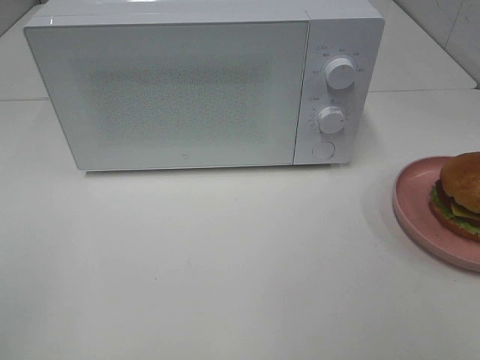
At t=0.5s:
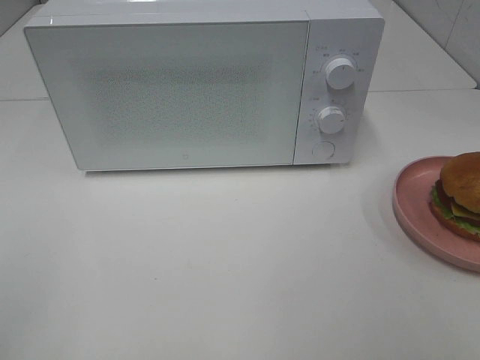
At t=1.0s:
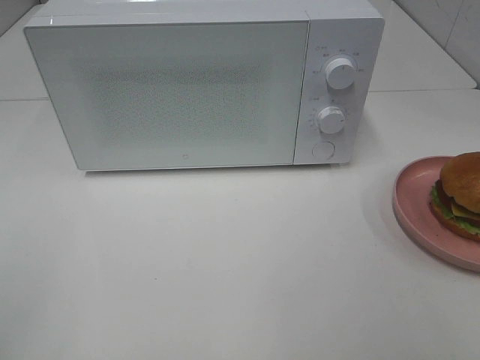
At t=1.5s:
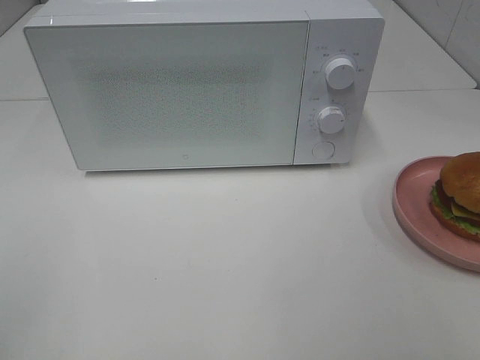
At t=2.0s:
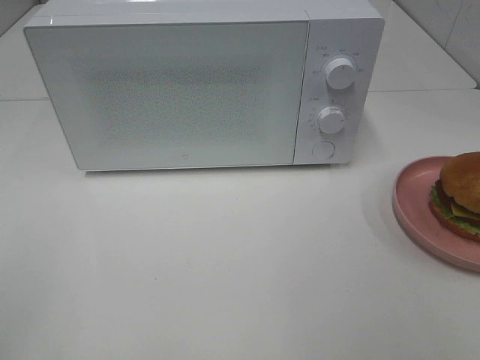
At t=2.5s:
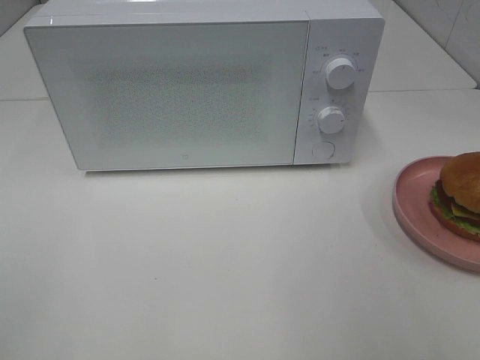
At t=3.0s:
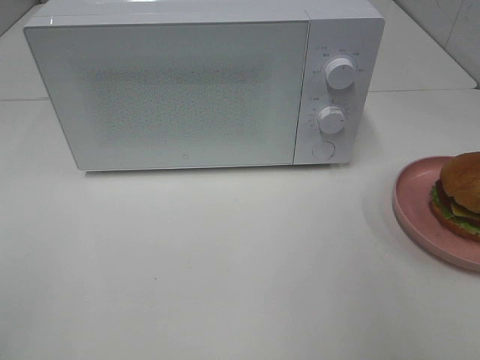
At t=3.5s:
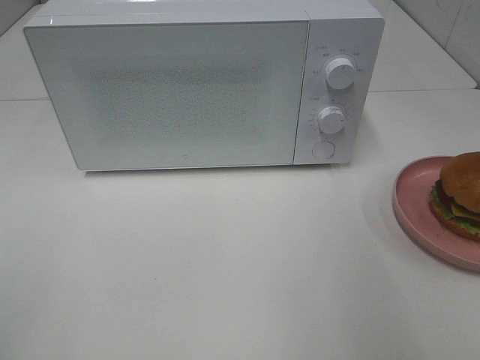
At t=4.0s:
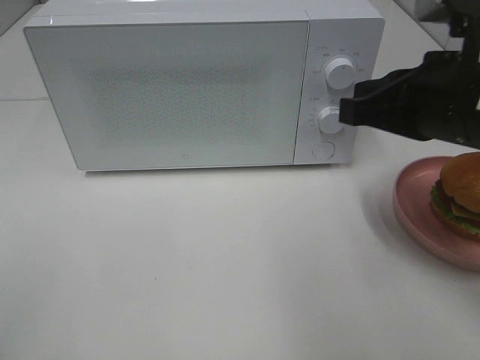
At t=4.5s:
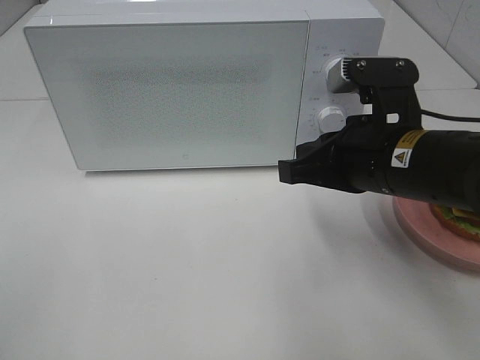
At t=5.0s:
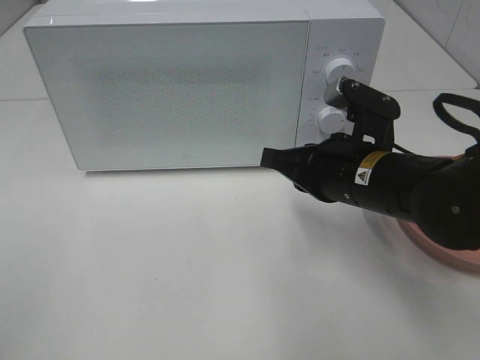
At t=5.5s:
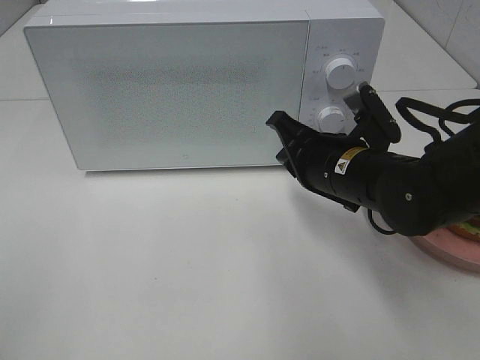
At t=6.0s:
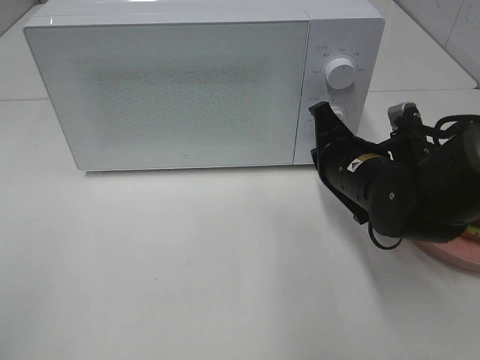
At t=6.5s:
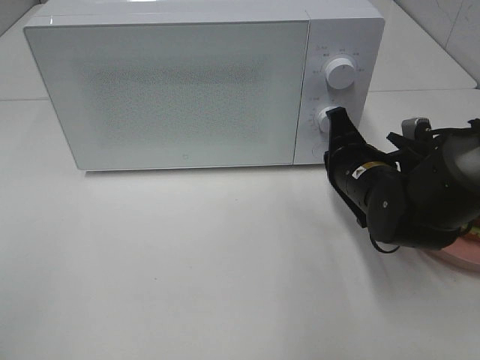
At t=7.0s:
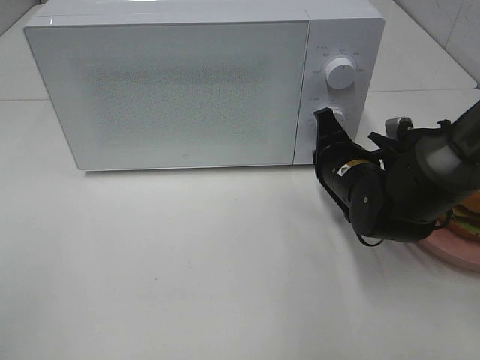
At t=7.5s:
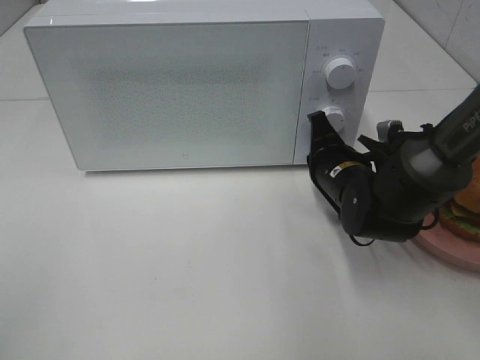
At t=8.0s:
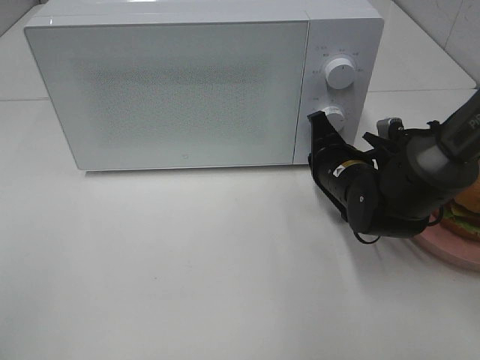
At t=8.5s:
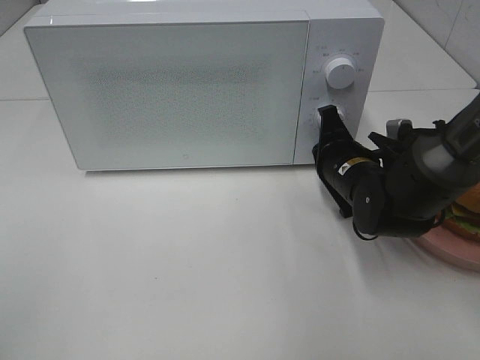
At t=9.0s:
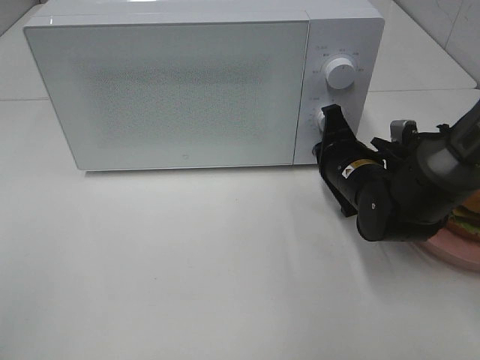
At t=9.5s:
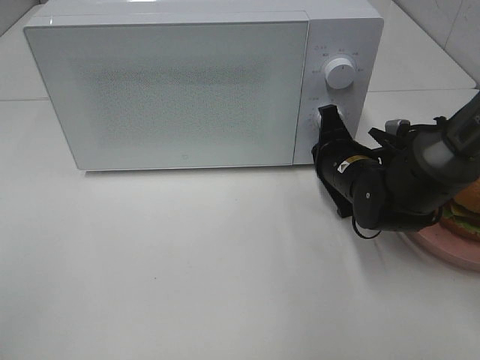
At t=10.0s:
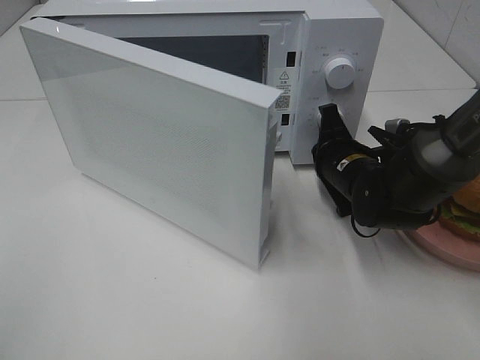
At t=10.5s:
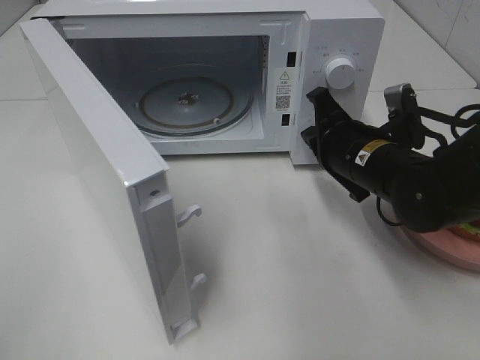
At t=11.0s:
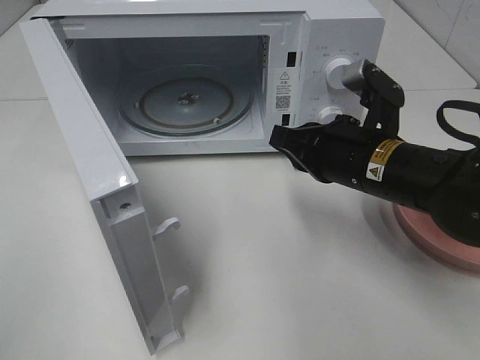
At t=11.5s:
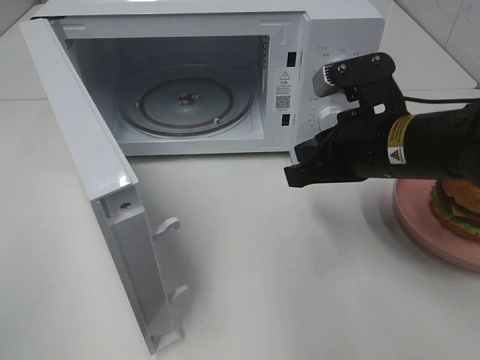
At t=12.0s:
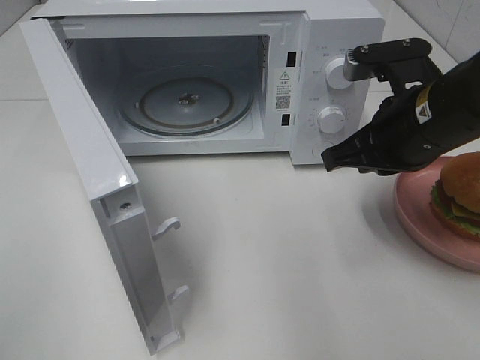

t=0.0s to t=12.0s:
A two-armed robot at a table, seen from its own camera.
Task of the whole recording: Heat the burger.
Step, t=0.0s to t=10.0s: Right hand: press the switch.
t=0.0s to t=2.0s: Both grippers stay about where they are.
t=2.0s to t=4.0s: The right gripper travels forward and to the left by approximately 25 cm, and closes up.
t=4.0s to t=6.0s: The right gripper heads downward and forward, covering roughly 15 cm.
t=6.0s to t=8.0s: The right gripper moves roughly 5 cm.
t=8.0s to t=10.0s: The grippers stay close to where they were, moving slightly.
t=10.0s to t=12.0s: The right gripper travels upward and backward by approximately 15 cm.

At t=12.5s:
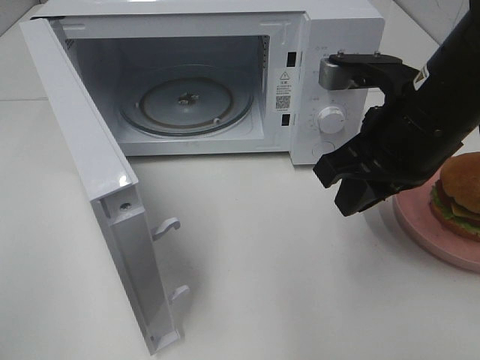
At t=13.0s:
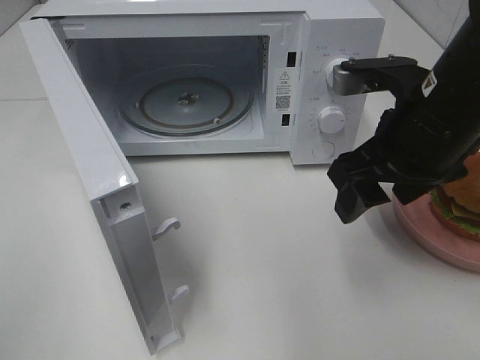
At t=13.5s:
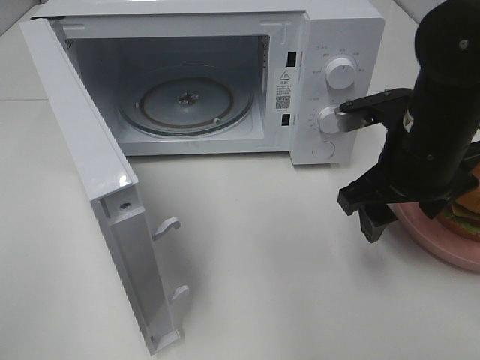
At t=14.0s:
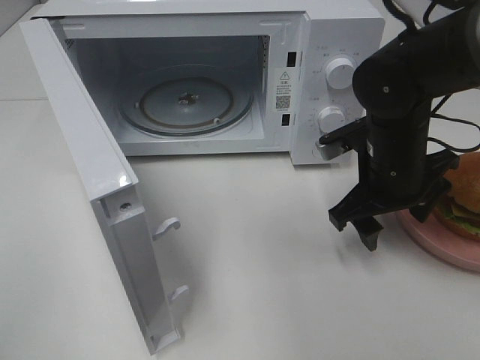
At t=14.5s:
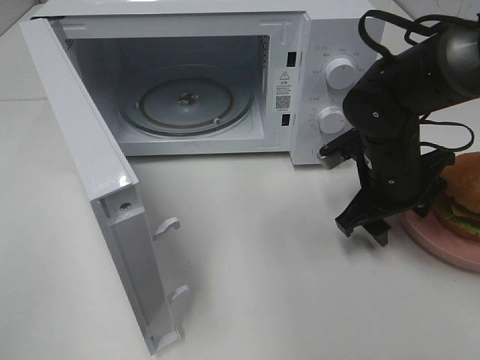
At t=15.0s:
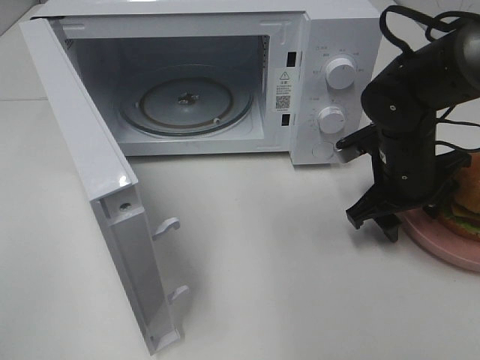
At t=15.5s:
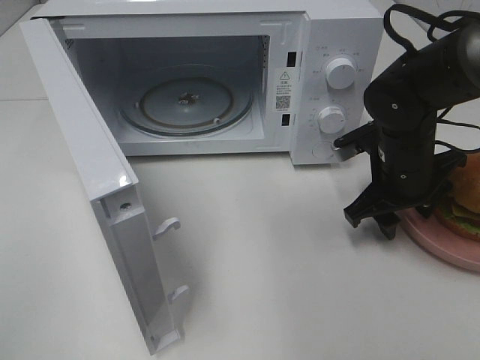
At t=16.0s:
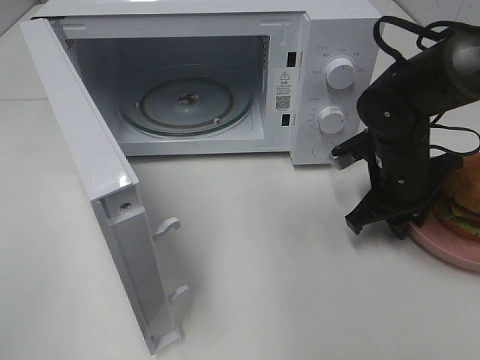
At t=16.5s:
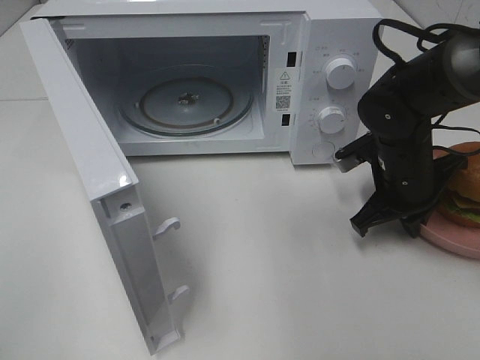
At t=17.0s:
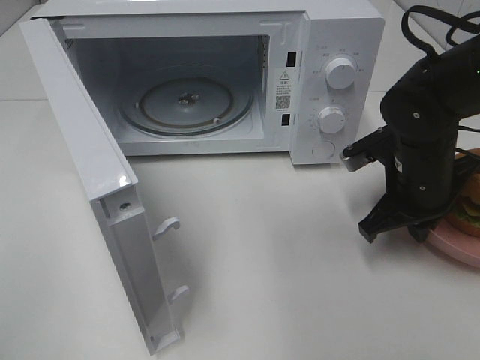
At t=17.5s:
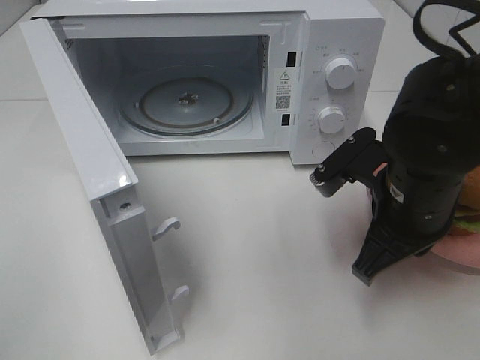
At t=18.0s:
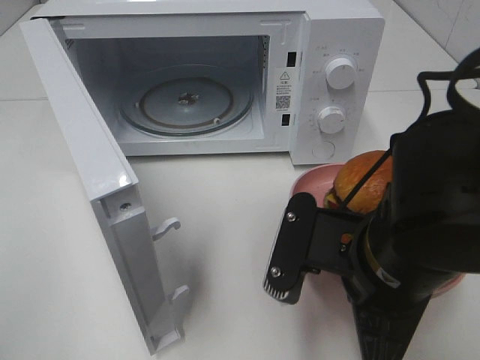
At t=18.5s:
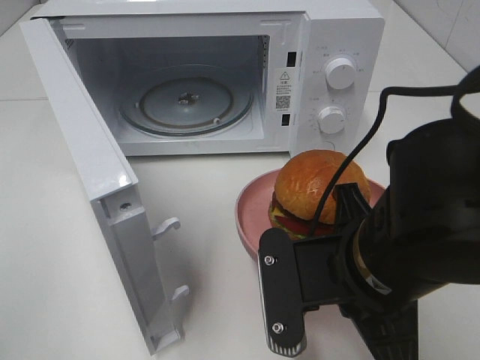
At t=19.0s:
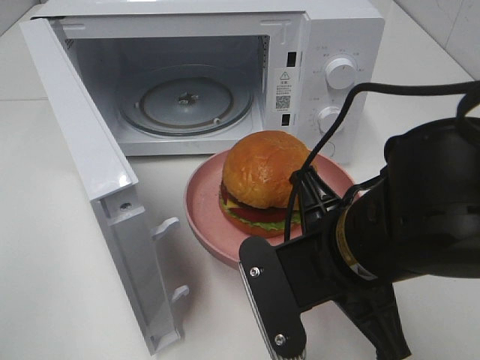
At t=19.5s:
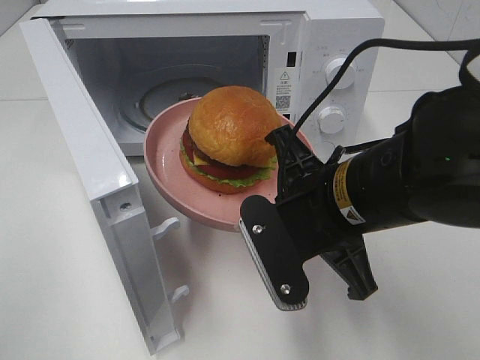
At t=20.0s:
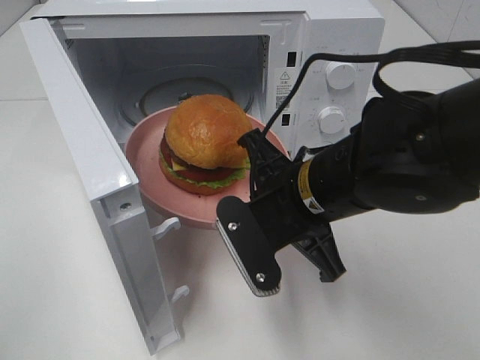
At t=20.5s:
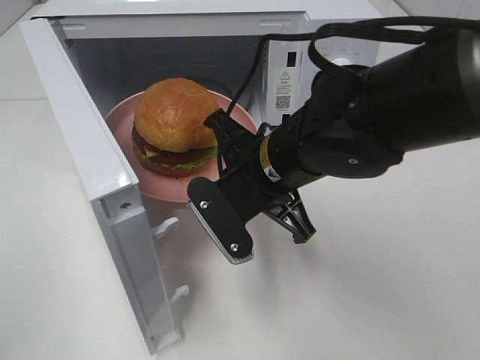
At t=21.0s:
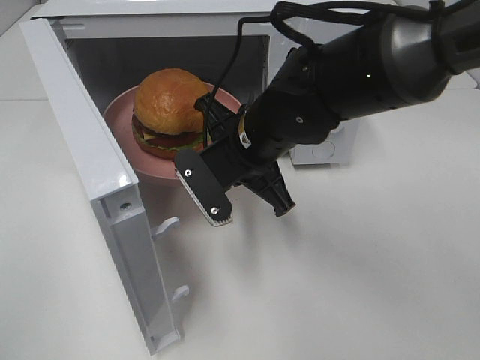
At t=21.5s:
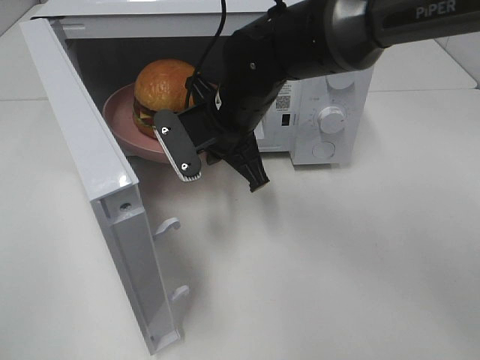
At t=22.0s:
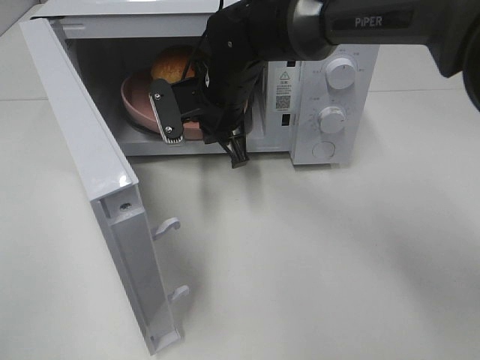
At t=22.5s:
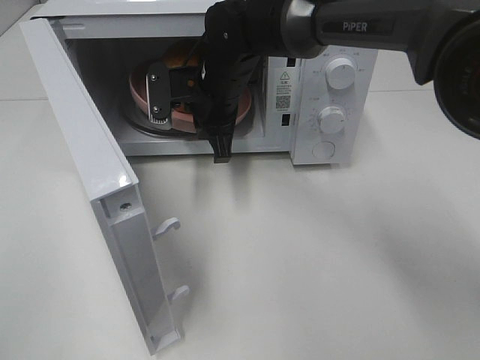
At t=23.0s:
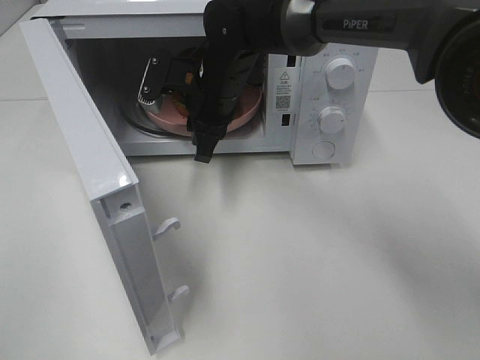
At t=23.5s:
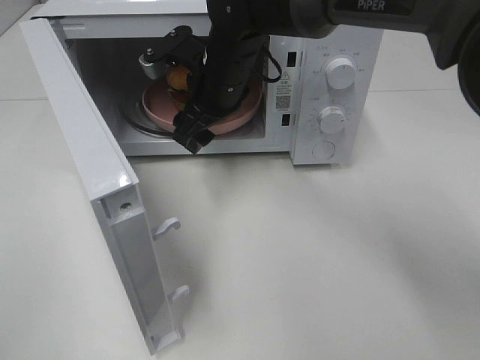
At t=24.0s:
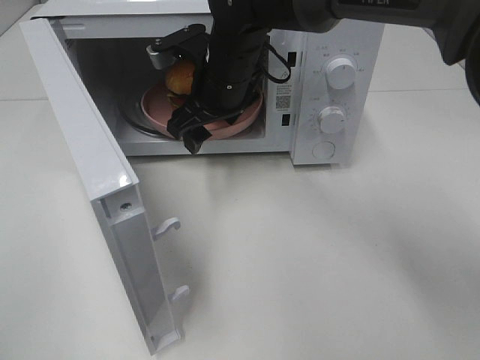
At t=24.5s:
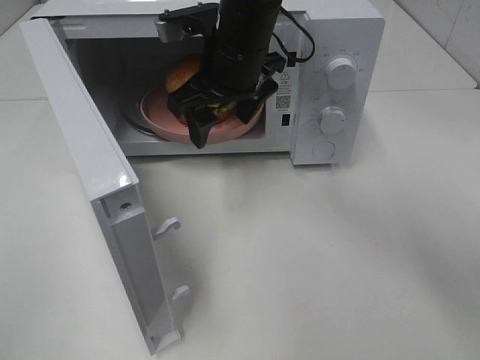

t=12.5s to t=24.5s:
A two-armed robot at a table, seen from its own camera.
Task of the whole recording: Heat the burger.
Step, t=12.5s to t=16.5s: Right hand: grab the plate with the hamburger.
Step, t=17.0s to t=23.0s: Right hand: place the plate in the microwave.
t=12.5s to t=14.5s: The right gripper travels downward and forward by some 15 cm, and opens.
t=14.5s to t=16.5s: The right gripper closes.
t=16.5s to t=18.5s: The right gripper shifts some 20 cm backward, to the left and upward.
t=18.5s to t=20.5s: The right gripper shifts about 10 cm forward and to the left.
t=20.5s to t=22.5s: The right gripper heads forward, covering about 15 cm.
t=22.5s to t=24.5s: The right gripper is displaced upward by roughly 5 cm, and opens.

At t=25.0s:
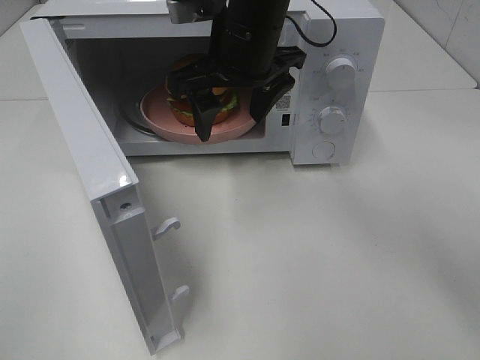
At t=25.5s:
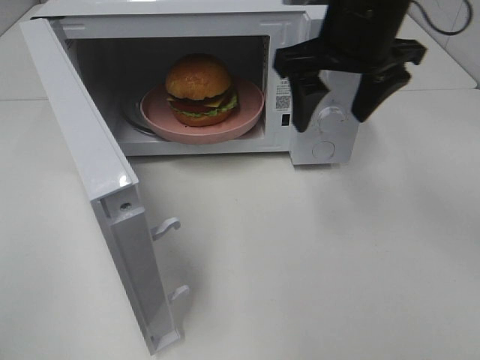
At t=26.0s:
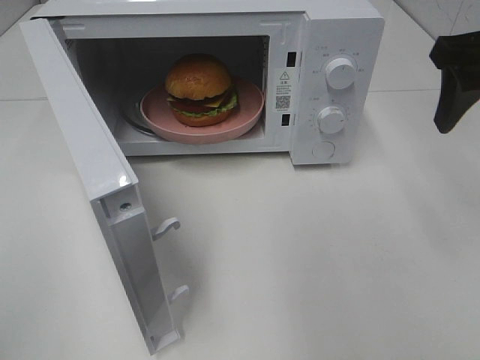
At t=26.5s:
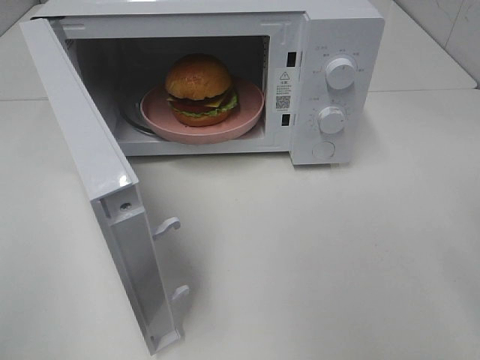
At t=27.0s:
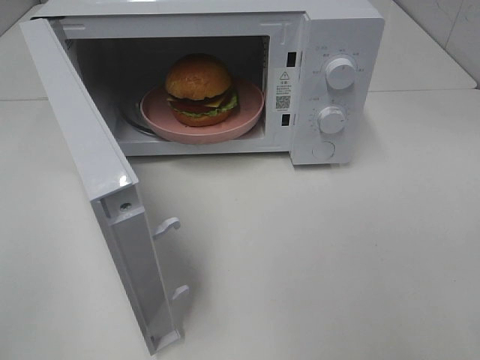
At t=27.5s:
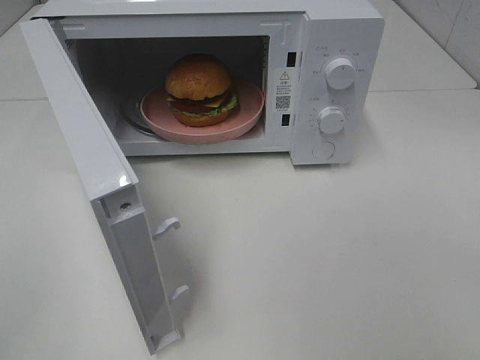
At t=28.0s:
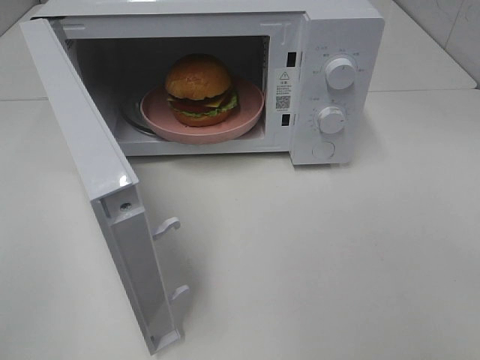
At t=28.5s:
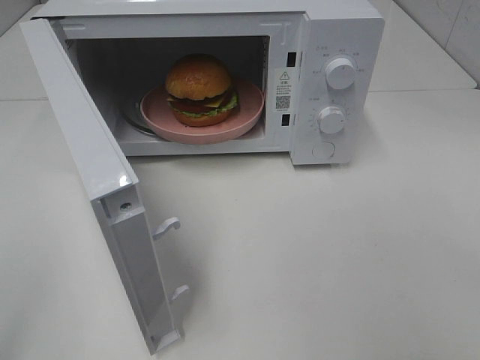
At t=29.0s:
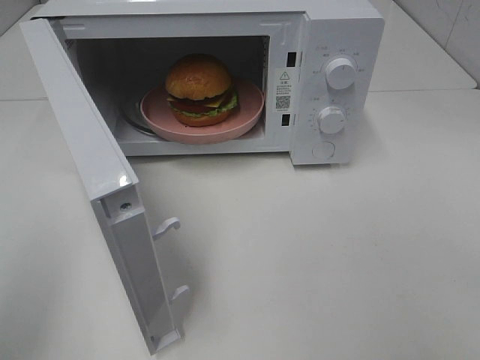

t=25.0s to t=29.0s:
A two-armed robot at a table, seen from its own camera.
Task of the whole recording: Heat the burger.
t=25.0s to t=27.0s: The right gripper shifts some 40 cm backward and to the right.
